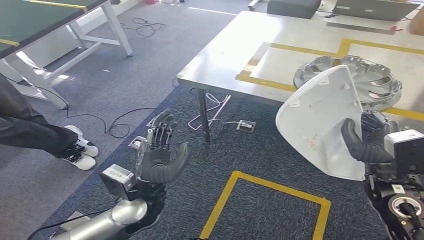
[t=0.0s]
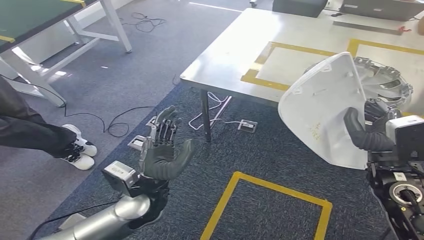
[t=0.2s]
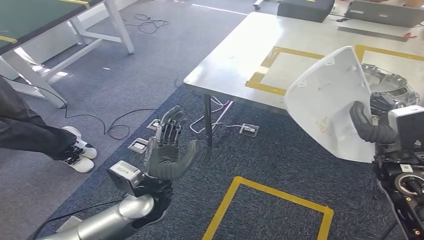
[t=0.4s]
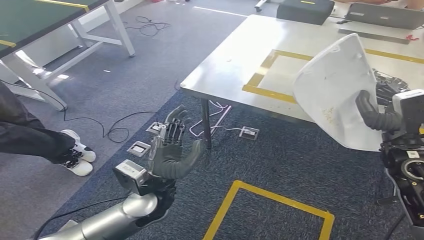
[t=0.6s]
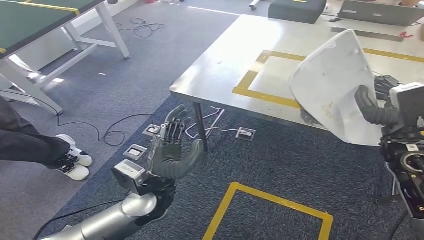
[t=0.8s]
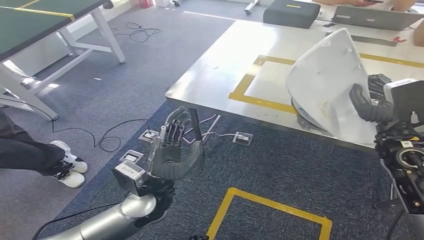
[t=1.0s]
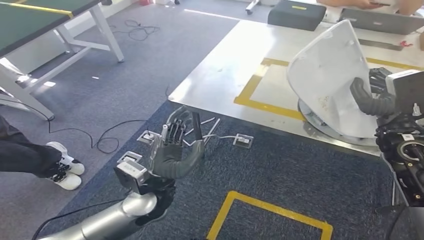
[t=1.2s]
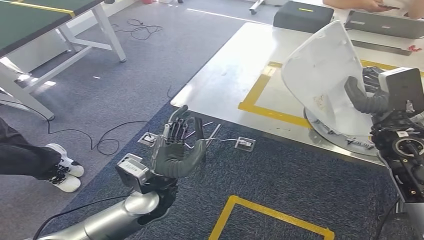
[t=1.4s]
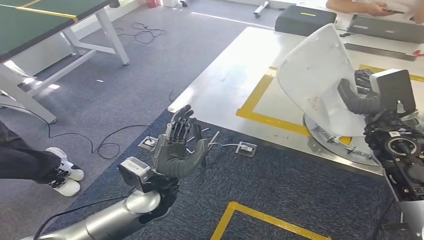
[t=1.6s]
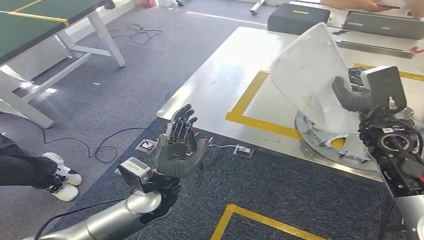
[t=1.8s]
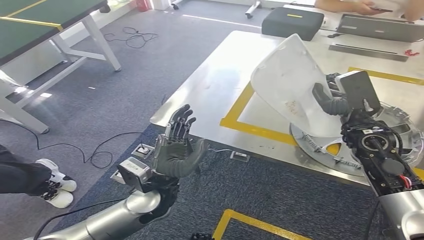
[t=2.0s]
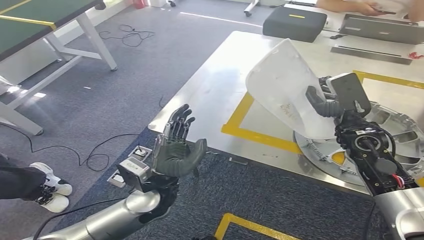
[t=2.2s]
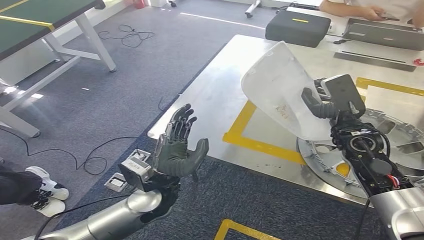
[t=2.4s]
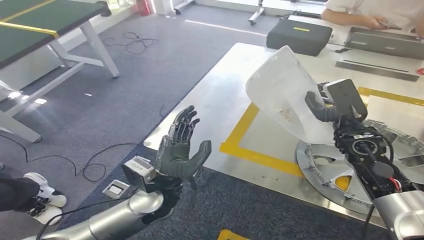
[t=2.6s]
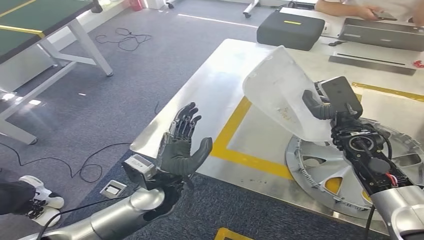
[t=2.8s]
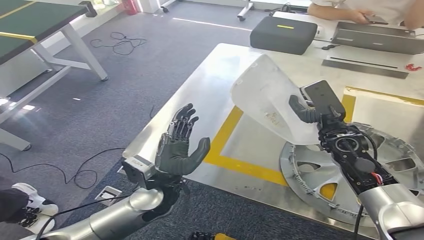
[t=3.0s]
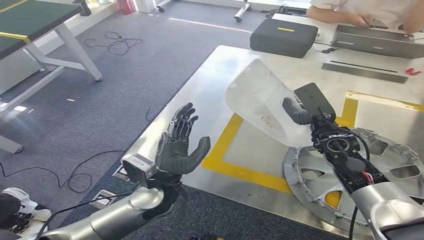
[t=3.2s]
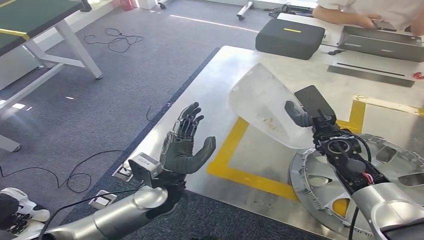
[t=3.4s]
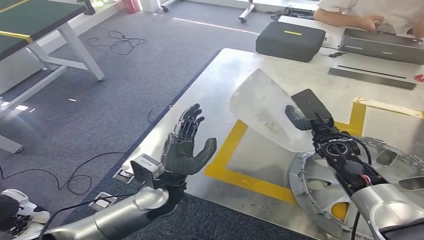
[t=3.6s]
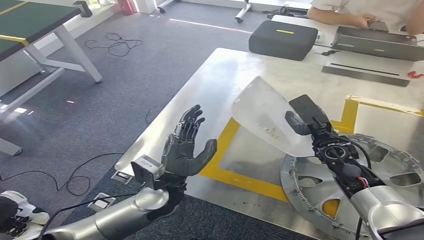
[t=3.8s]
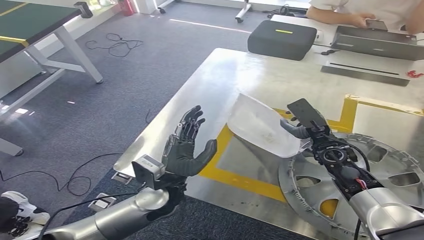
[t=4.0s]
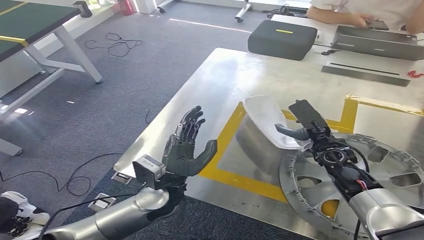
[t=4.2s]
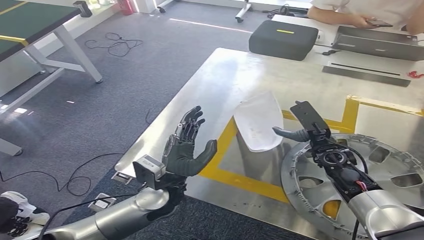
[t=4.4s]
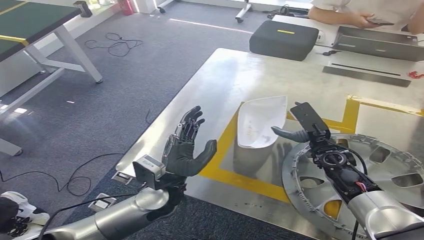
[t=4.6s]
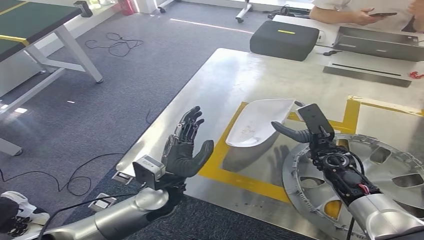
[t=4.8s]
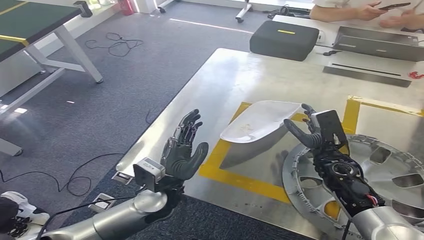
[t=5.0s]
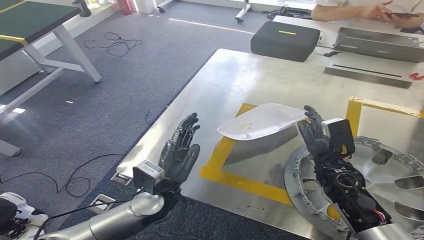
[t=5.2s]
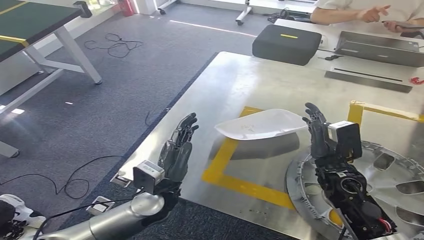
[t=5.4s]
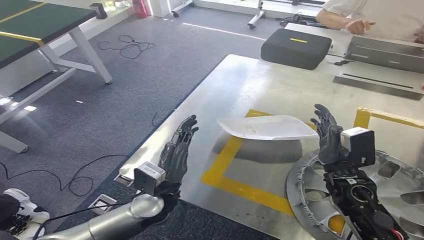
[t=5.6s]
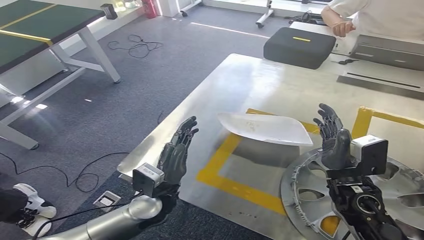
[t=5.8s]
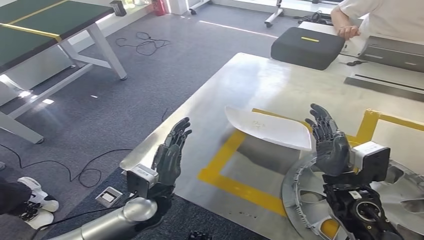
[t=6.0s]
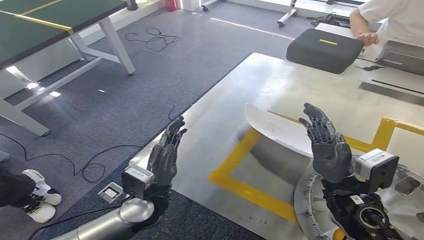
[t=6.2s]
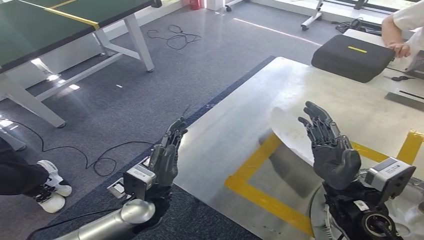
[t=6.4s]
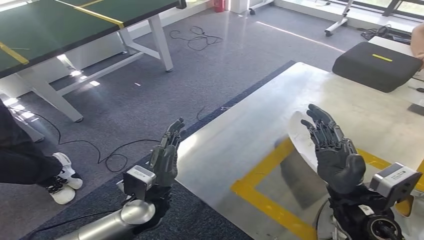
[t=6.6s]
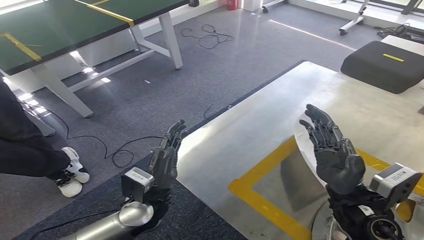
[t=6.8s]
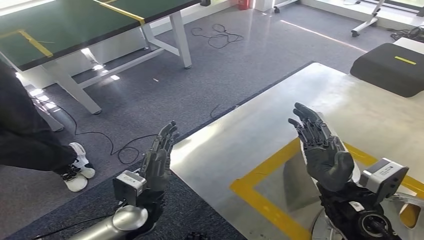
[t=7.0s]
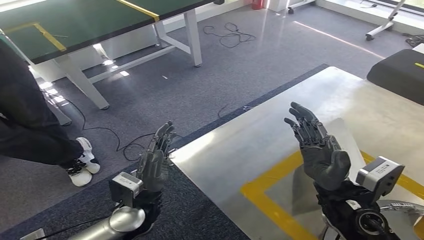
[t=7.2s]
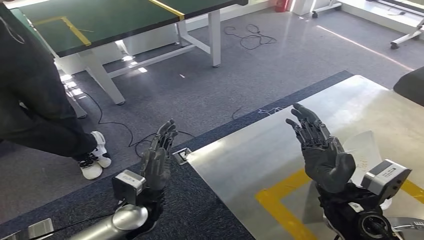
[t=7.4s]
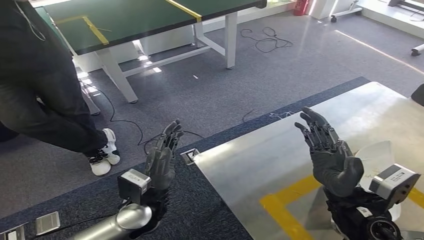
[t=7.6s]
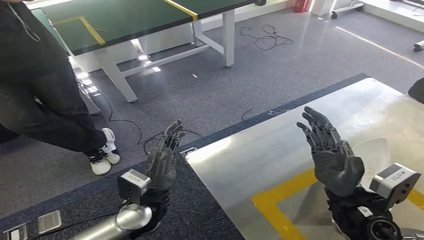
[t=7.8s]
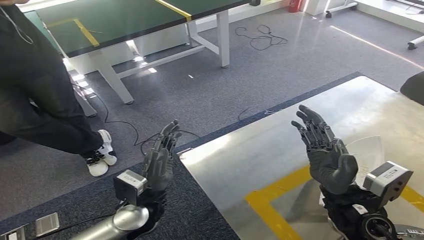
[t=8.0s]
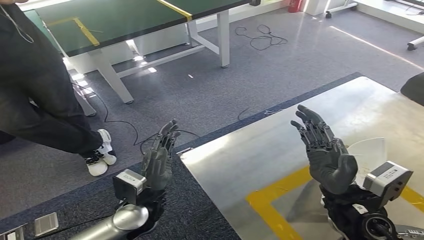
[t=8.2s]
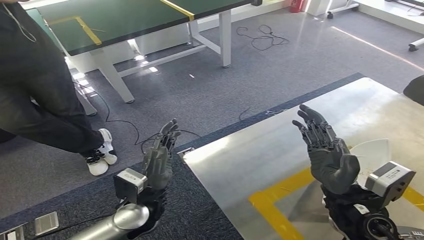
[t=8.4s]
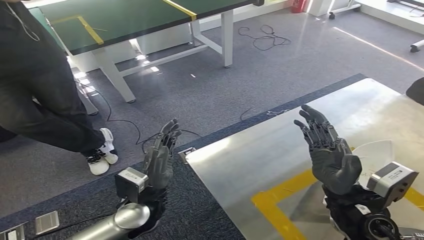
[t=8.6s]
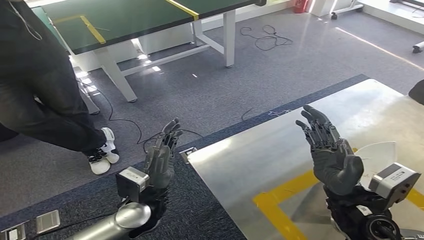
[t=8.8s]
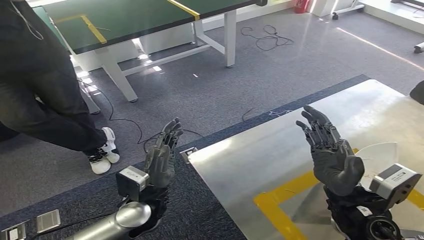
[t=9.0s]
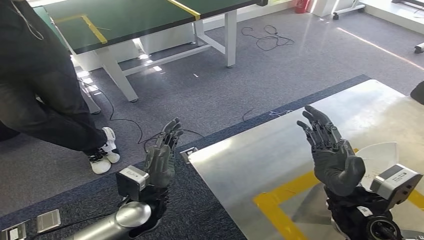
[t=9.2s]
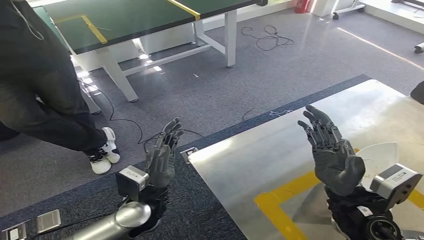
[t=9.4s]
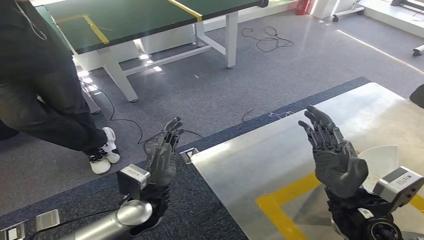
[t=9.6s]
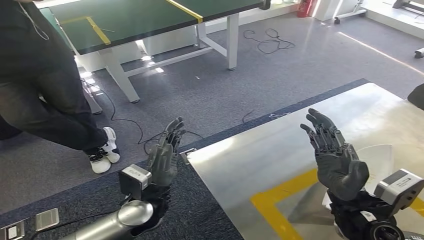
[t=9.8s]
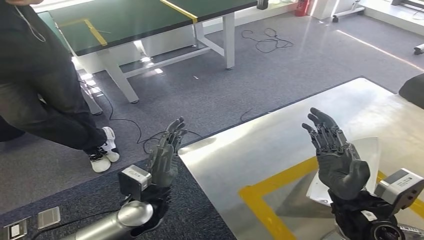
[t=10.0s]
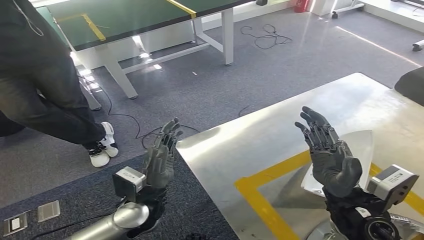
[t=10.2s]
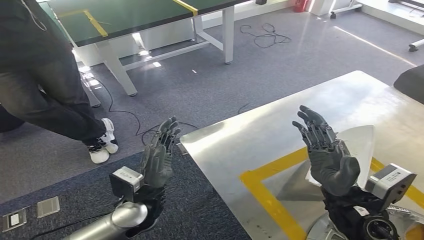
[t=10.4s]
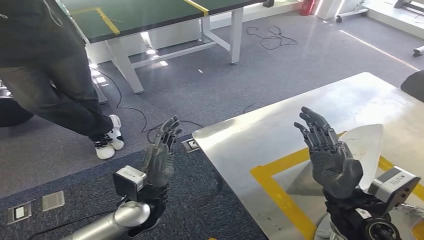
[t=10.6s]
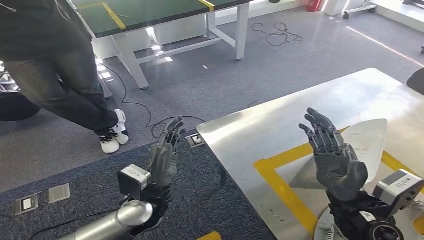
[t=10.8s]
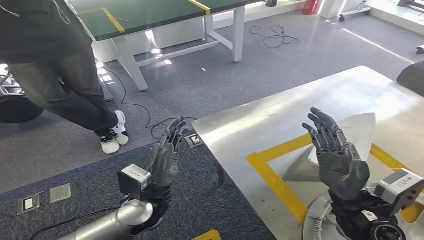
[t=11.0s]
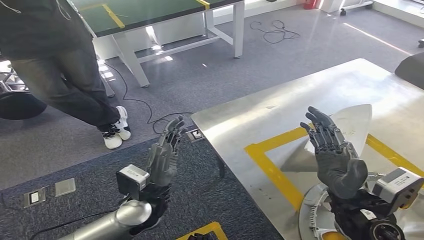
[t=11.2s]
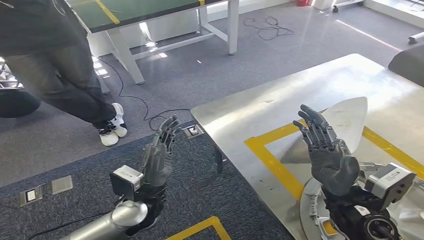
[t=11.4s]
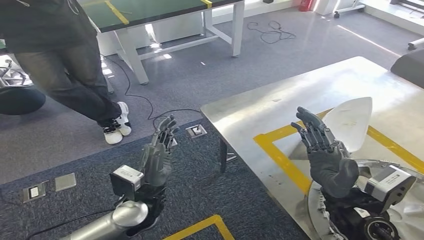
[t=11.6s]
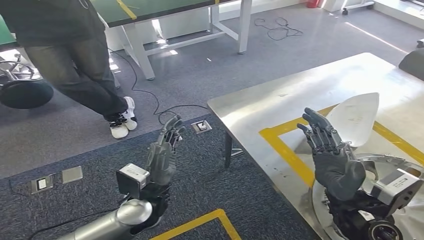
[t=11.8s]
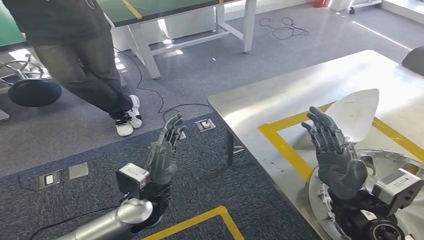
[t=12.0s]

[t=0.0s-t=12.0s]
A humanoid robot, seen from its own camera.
Step, t=1.0s to t=8.2s: Insert the small component into the corresponding slot on the workbench.
t=7.6s to t=9.0s: Both hands stay about where they are.

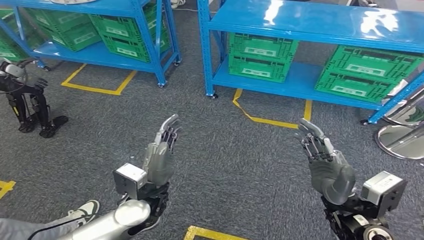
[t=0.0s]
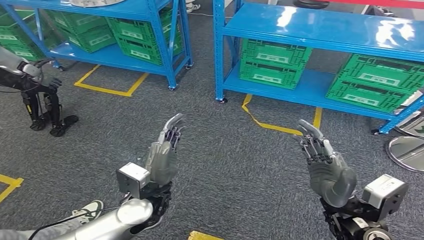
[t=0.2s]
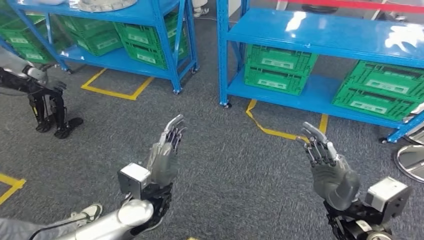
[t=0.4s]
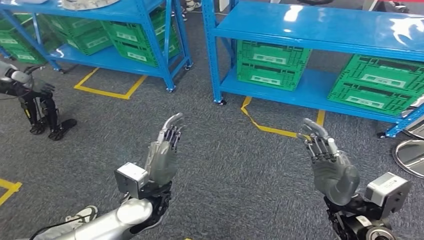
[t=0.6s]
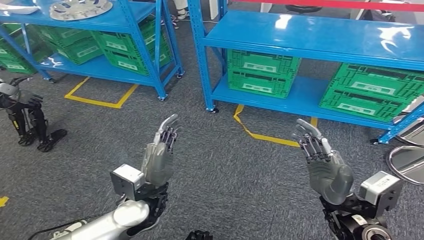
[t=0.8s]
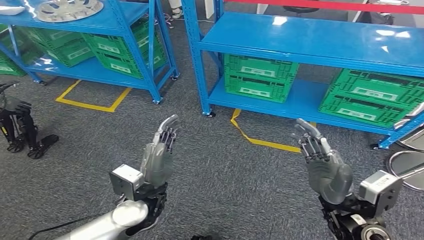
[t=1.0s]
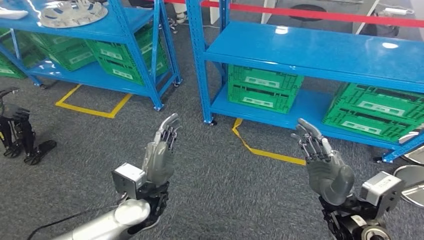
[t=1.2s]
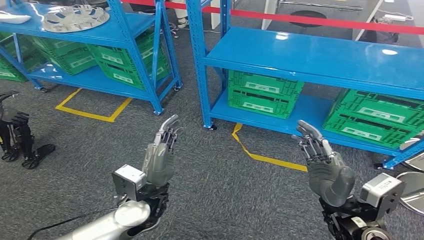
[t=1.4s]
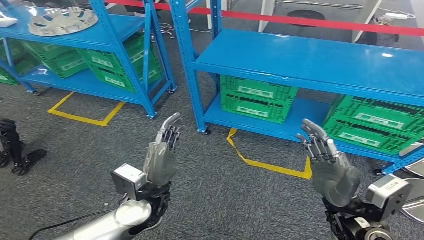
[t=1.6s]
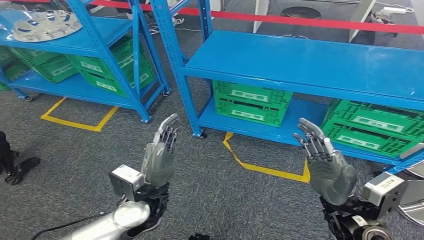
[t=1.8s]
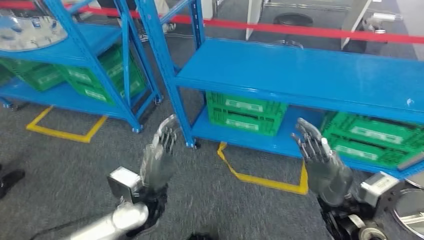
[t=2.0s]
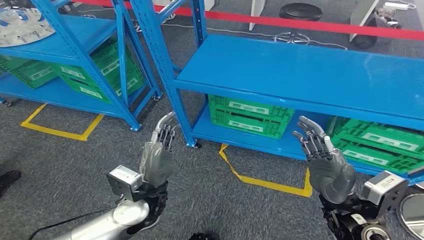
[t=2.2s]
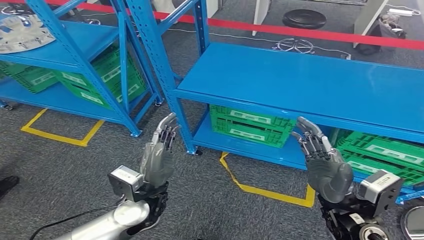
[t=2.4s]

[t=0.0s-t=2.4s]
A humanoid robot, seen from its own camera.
Step, t=0.0s to t=2.4s: Return to the initial position at the workbench.
